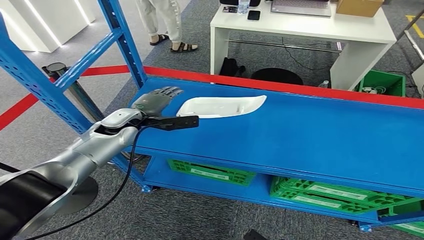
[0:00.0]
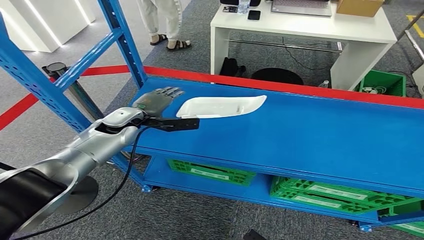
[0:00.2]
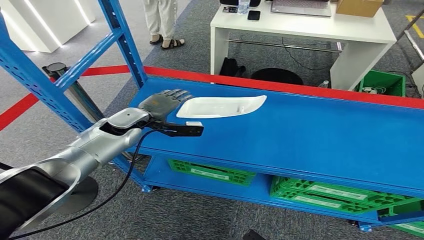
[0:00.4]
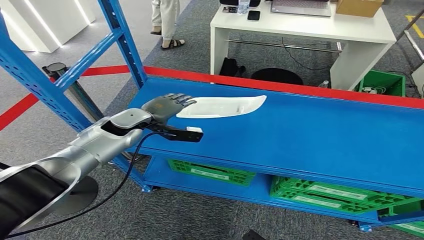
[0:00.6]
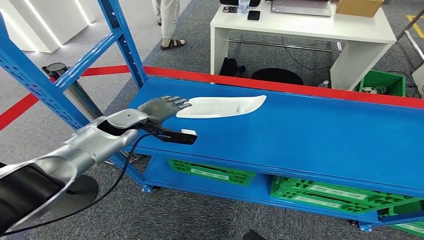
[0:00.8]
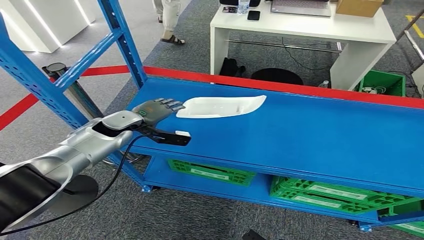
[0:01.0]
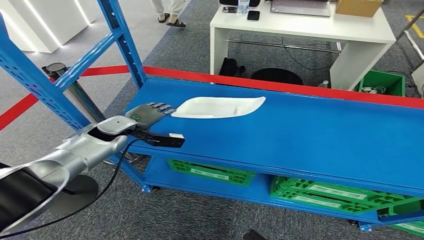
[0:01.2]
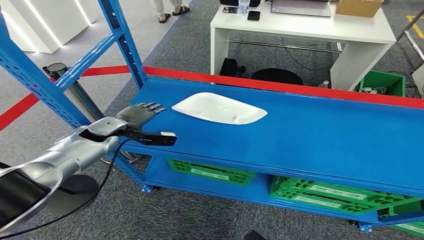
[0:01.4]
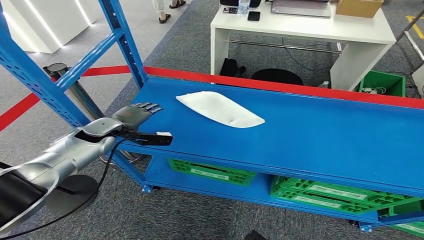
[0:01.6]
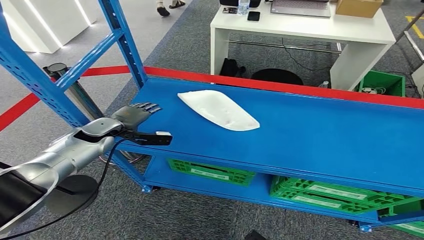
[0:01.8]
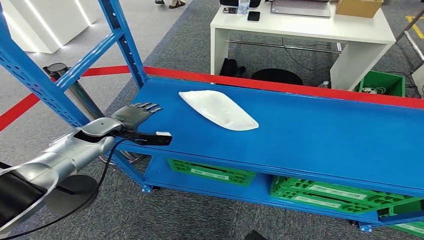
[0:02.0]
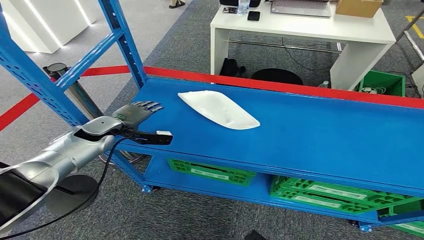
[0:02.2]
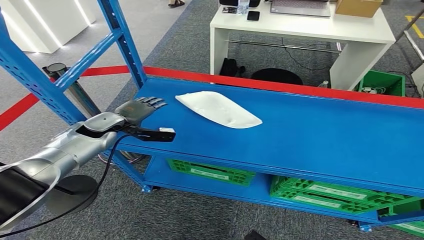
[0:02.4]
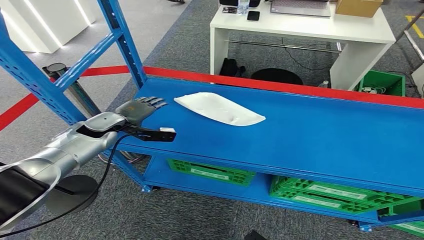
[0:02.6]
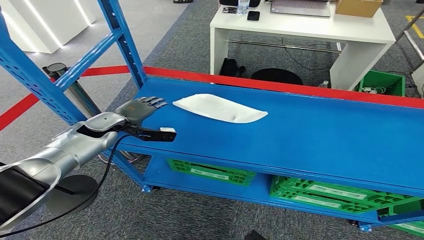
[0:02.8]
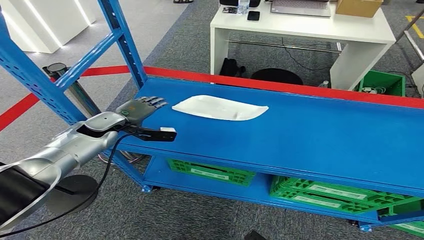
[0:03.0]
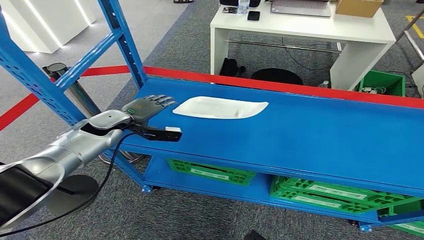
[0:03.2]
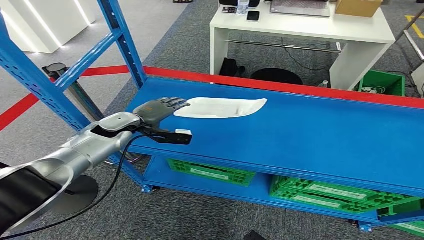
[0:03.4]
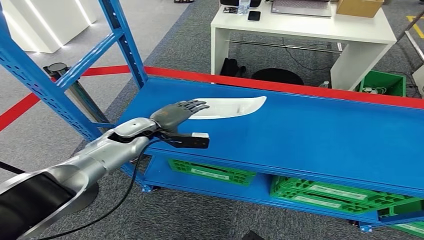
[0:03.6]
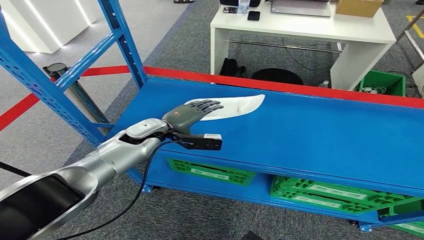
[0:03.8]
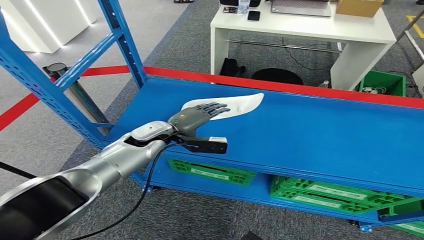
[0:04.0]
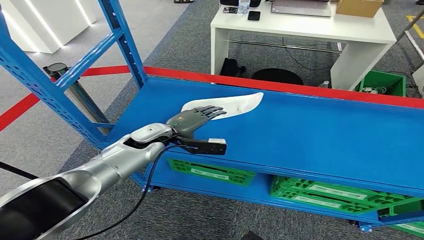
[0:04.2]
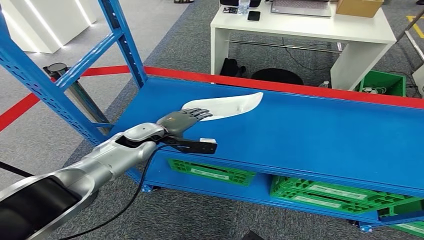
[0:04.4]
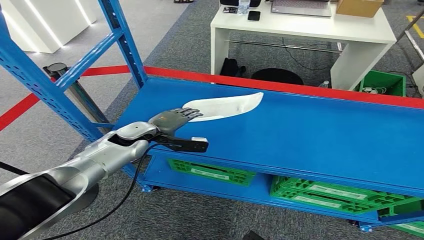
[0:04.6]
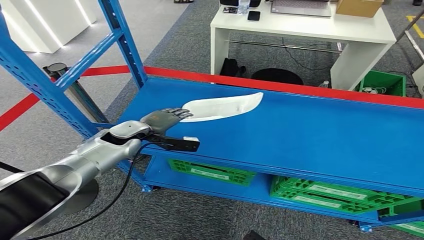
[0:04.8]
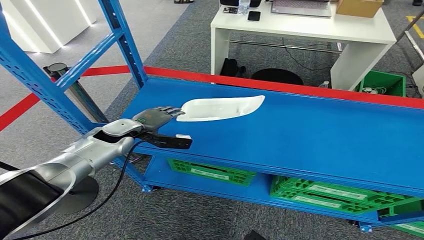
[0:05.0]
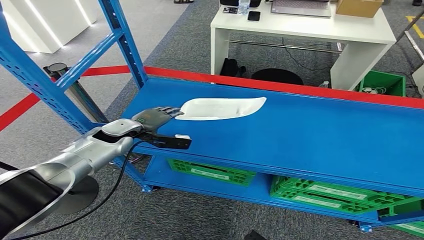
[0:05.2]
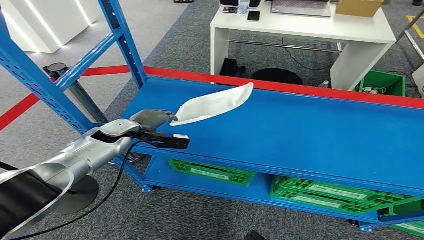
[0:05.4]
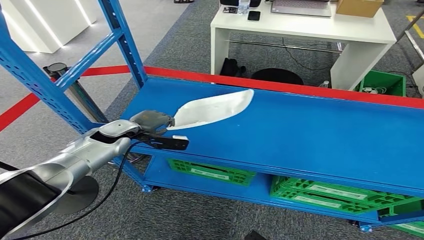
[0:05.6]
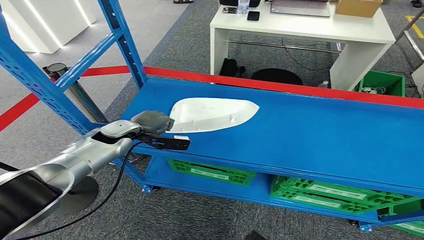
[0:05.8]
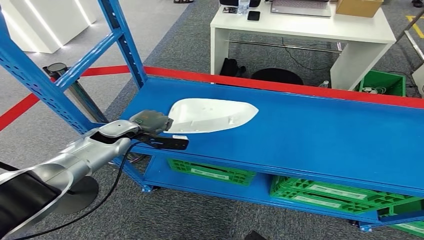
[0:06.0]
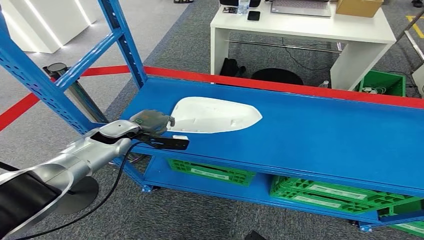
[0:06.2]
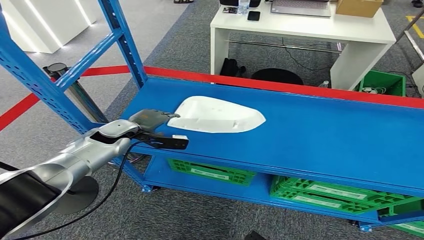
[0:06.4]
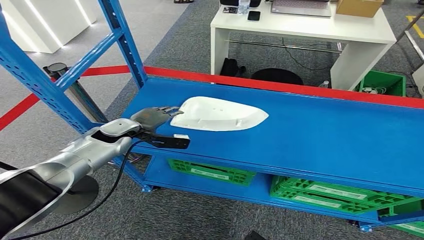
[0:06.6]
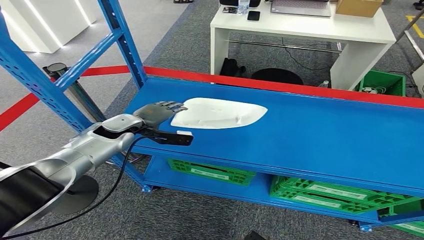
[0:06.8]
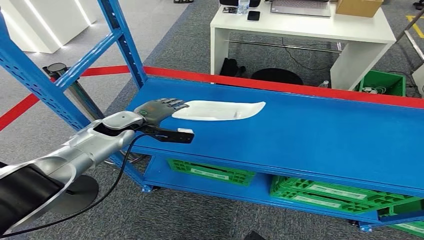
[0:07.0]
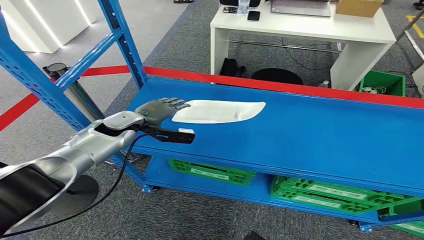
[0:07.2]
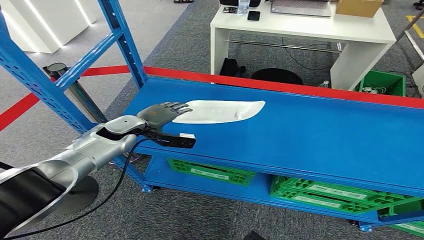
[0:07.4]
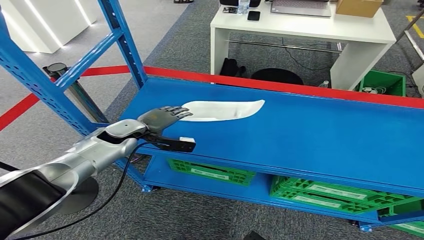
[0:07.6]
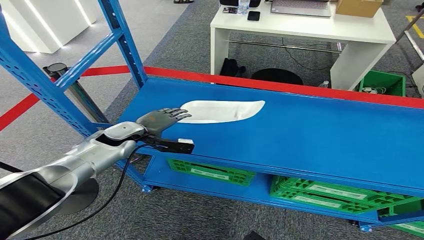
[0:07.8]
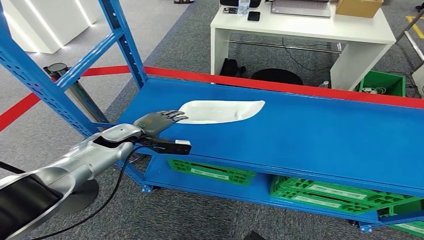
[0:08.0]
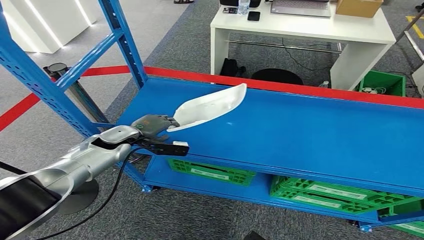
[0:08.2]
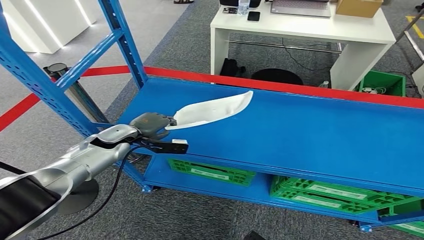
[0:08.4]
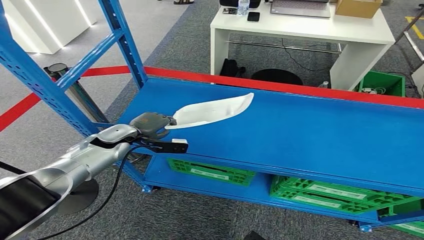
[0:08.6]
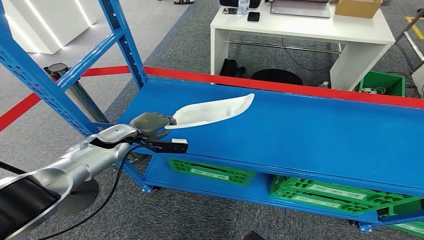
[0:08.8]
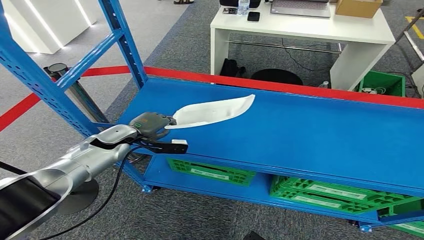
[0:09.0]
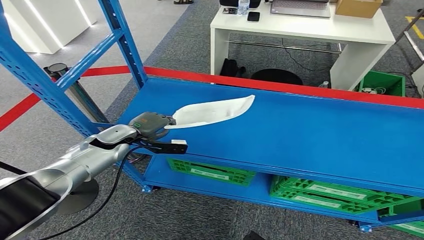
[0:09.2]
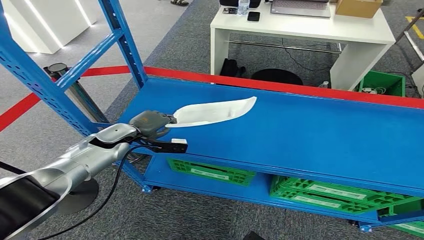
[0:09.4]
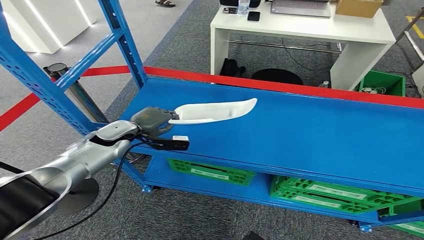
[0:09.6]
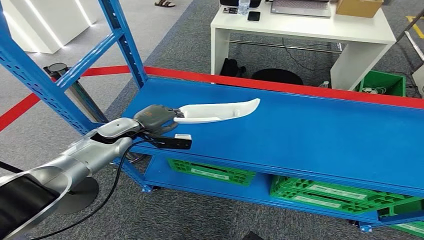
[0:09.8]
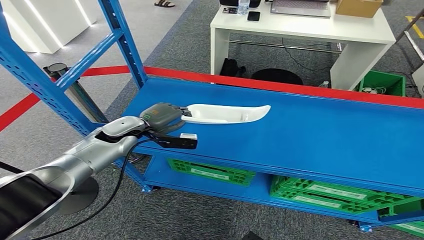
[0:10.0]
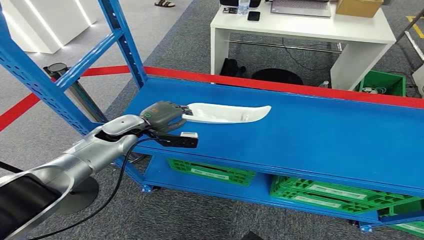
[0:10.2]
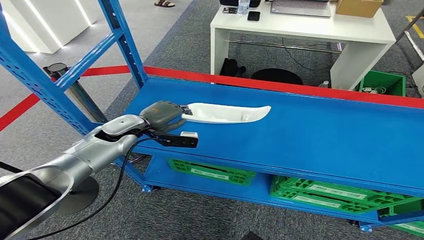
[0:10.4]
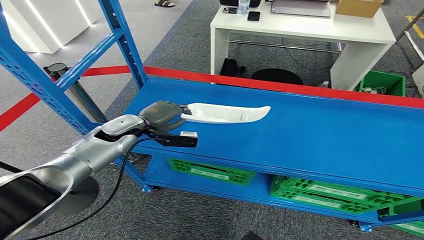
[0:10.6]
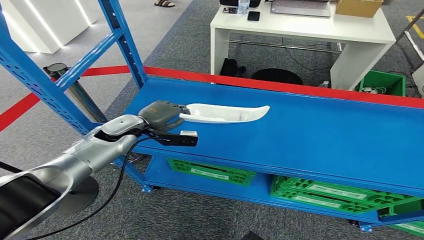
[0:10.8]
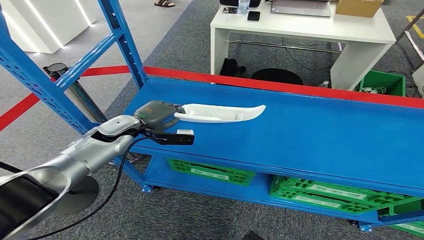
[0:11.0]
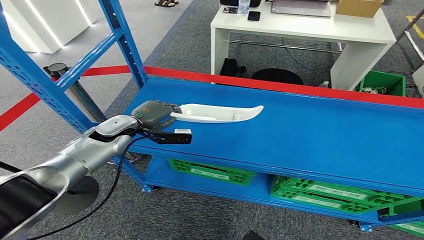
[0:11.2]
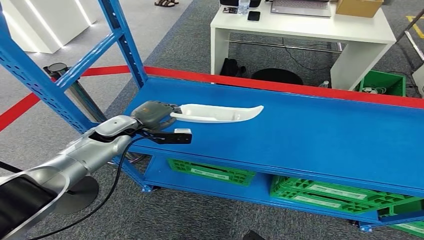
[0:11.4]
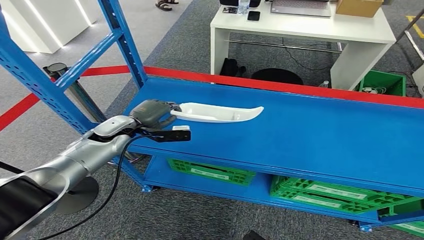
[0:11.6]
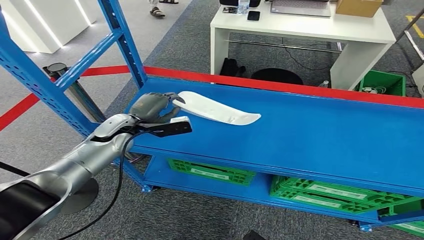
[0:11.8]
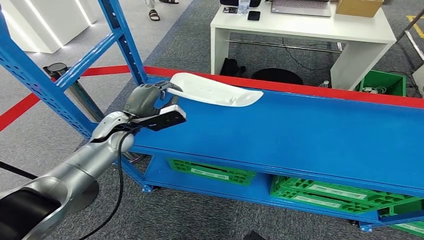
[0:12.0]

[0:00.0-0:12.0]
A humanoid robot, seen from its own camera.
0:00.0 to 0:01.6: The left hand goes approximately 10 cm to the left.
0:01.6 to 0:03.0: There are only small adjustments of the hands.
0:03.0 to 0:04.4: The left hand goes roughly 10 cm to the right.
0:04.4 to 0:06.0: The left hand is displaced to the left by approximately 10 cm.
0:06.0 to 0:09.0: There are only small adjustments of the hands.
0:09.0 to 0:10.4: The left hand changes place by some 5 cm.

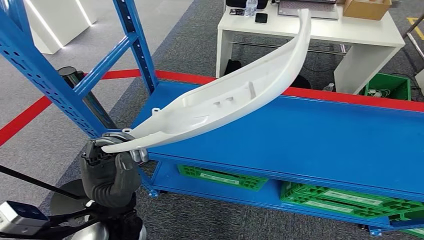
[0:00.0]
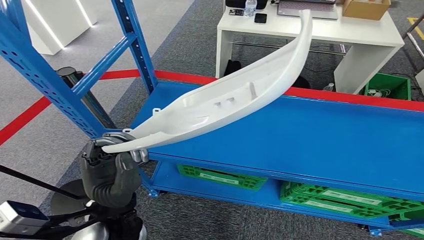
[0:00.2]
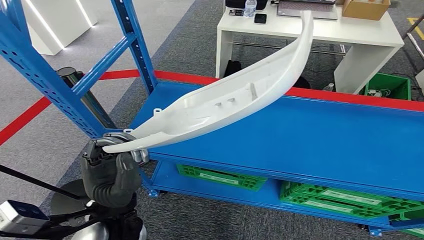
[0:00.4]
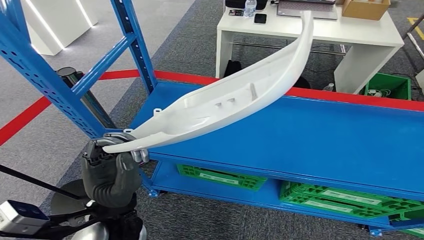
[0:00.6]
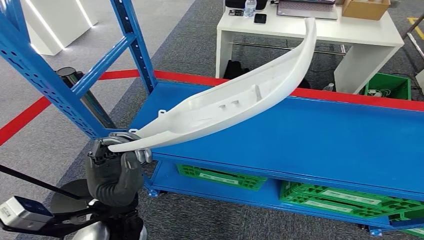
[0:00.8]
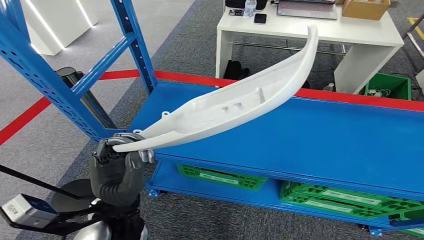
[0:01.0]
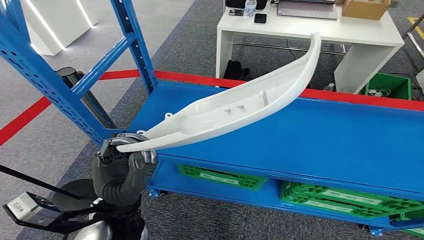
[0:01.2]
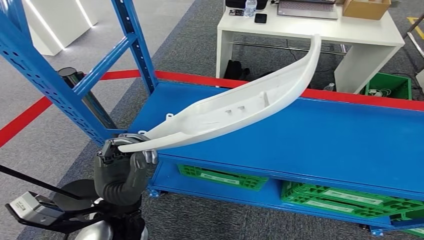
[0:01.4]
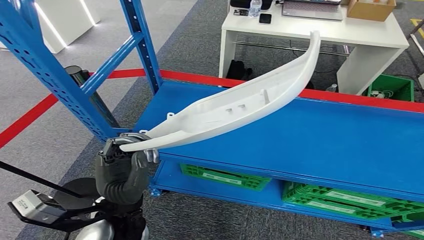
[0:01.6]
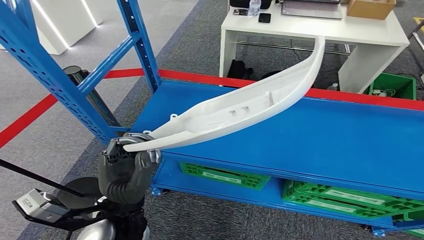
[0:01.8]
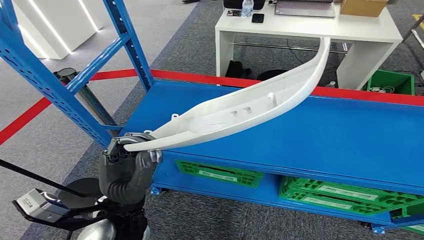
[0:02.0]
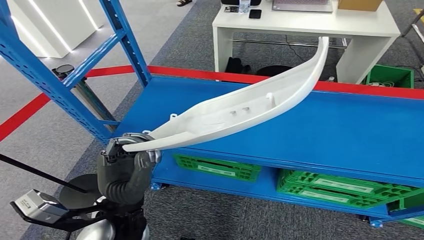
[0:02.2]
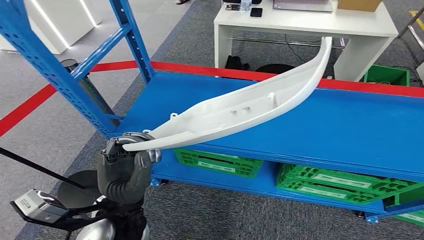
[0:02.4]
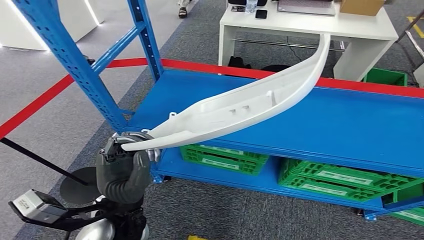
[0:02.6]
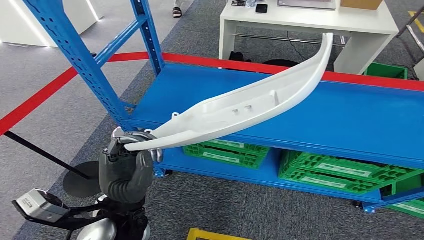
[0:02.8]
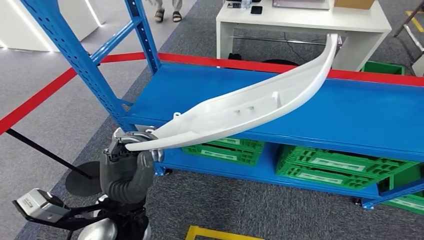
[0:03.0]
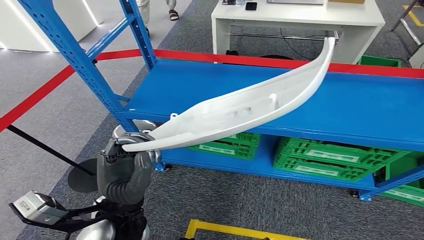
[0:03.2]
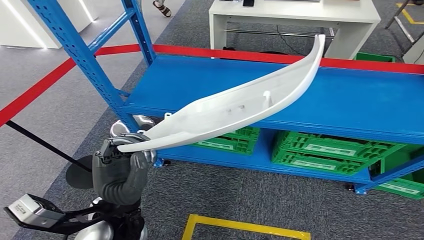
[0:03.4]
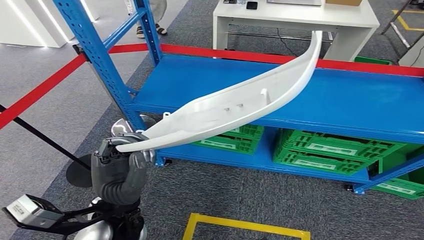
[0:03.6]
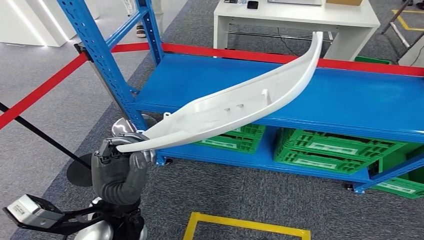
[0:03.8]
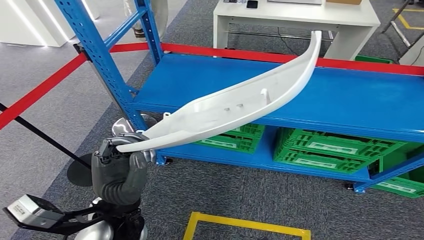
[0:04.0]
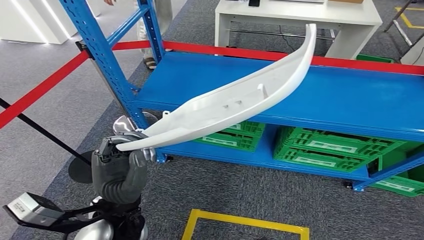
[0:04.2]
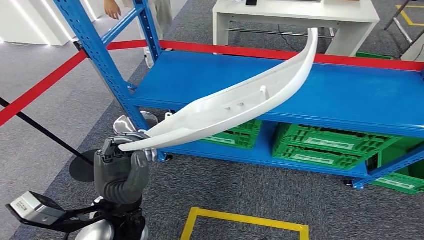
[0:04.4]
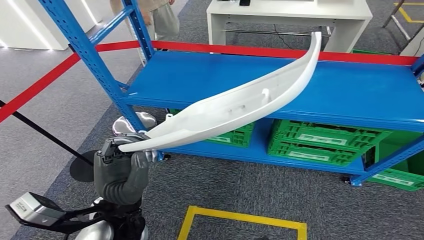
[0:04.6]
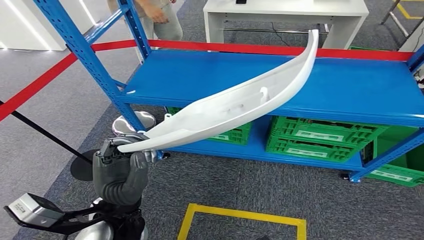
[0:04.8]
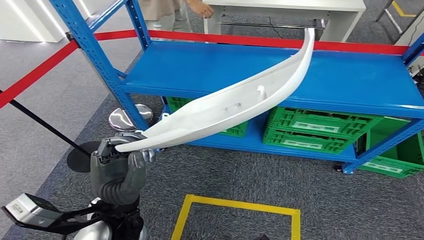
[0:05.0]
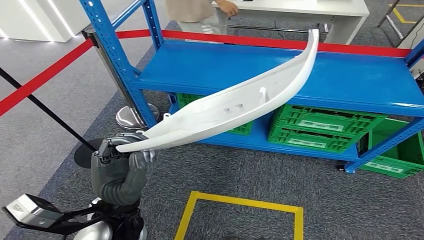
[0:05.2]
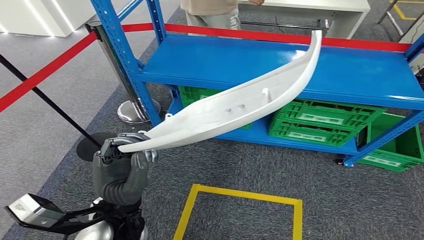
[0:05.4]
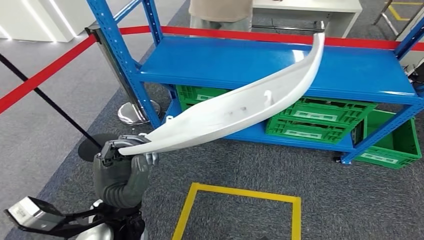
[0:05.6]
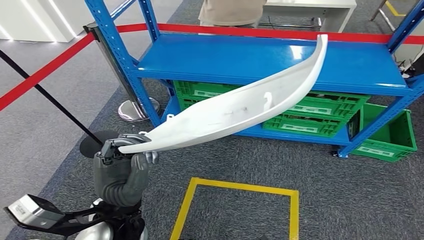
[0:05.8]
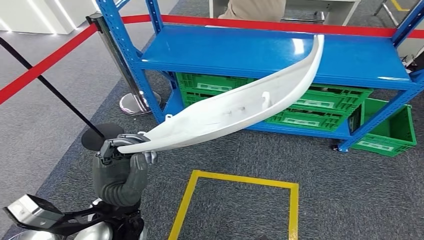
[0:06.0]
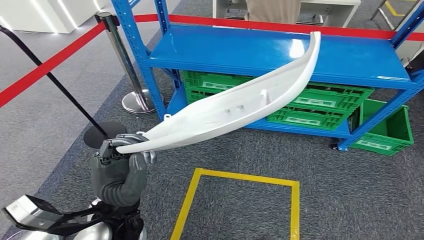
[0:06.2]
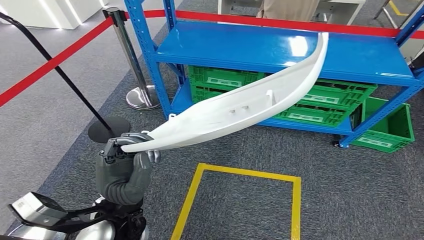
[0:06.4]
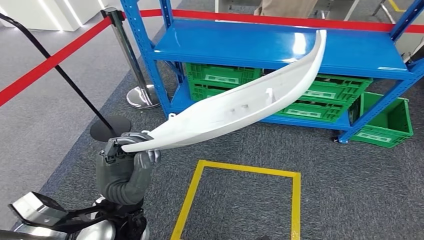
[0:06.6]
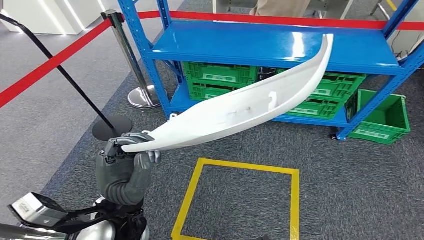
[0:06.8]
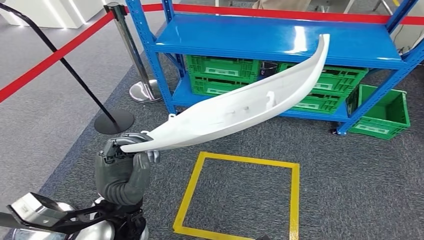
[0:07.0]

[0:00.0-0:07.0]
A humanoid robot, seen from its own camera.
0:00.0 to 0:01.4: The hands make only small movements.
